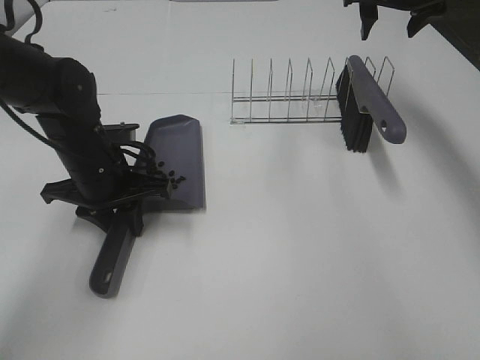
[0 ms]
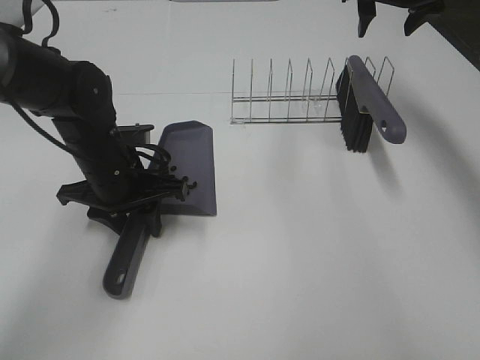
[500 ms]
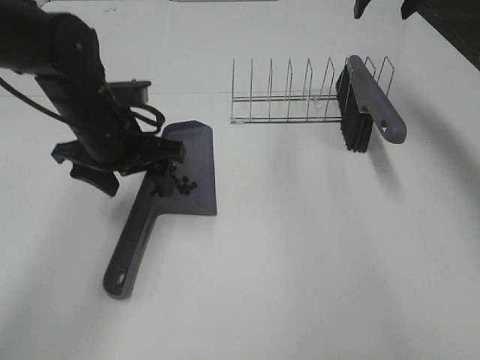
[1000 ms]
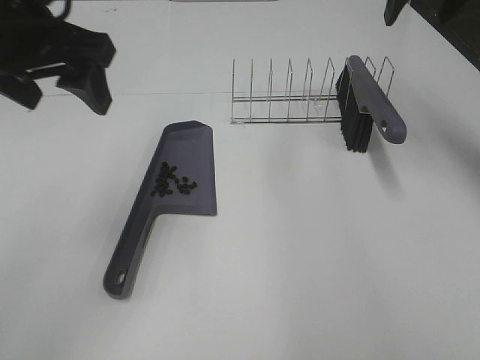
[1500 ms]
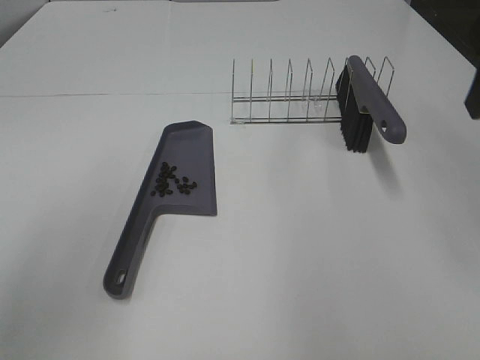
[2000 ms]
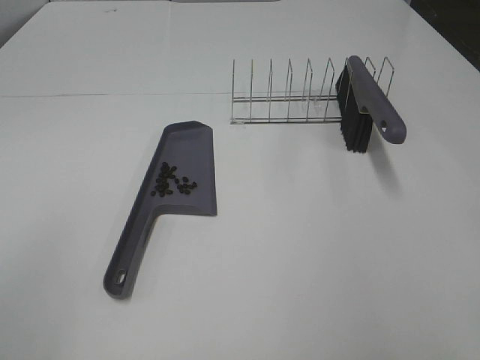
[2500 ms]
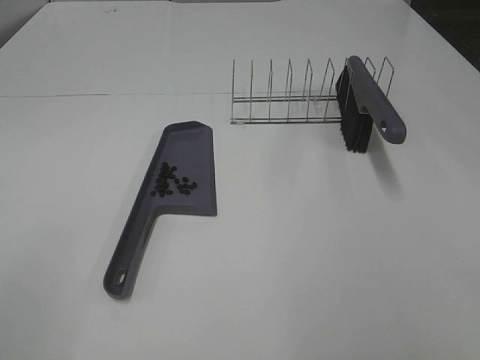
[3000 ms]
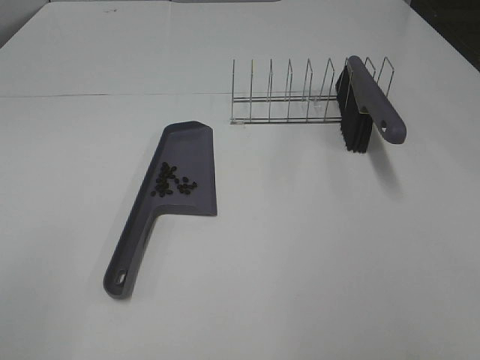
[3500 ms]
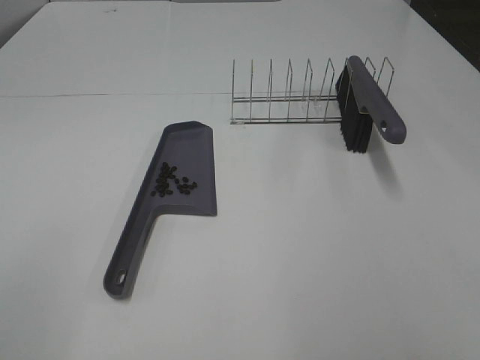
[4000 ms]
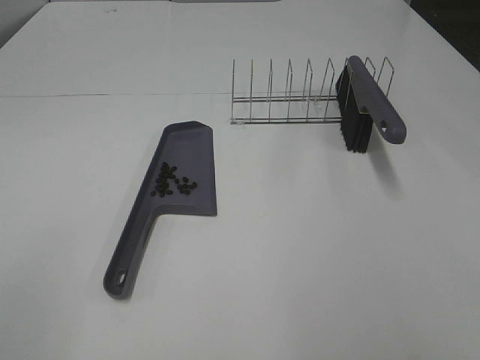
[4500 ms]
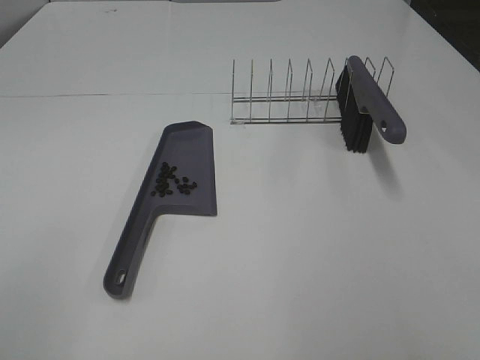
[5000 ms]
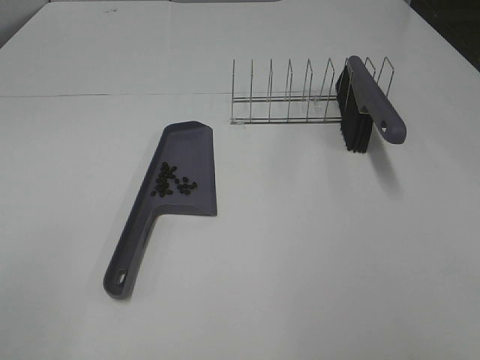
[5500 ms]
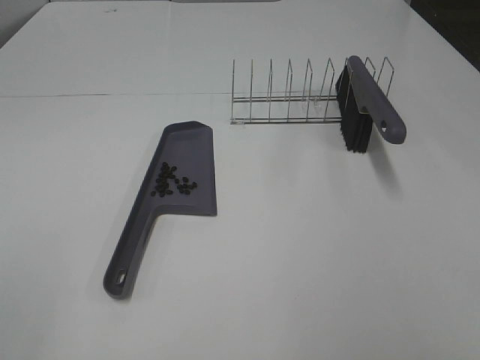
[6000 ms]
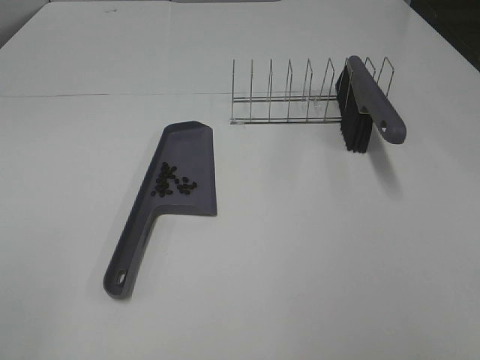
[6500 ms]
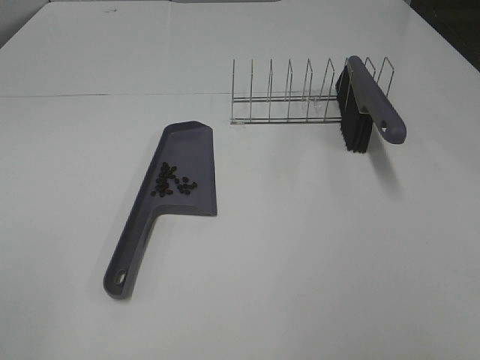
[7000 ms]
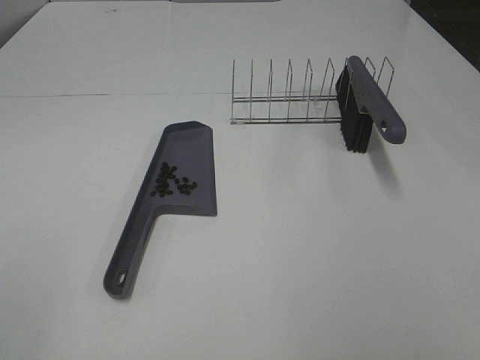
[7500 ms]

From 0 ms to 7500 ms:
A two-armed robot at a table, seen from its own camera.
Task of the whole recording: Sweep Coffee Bean.
From 0 ms to 2000 ms: The left gripper moves upward, backward and to the left, some 30 cm, and opens. Meanwhile the right gripper heads backward, covering some 30 cm.
From 4000 ms to 5500 ms: The two grippers keep their place.

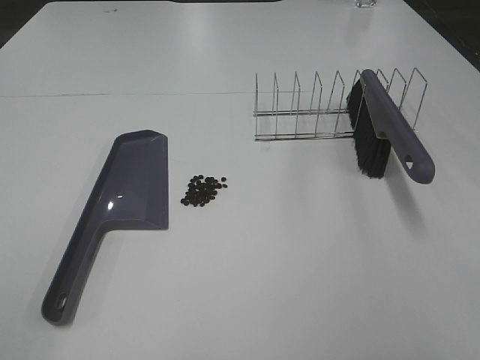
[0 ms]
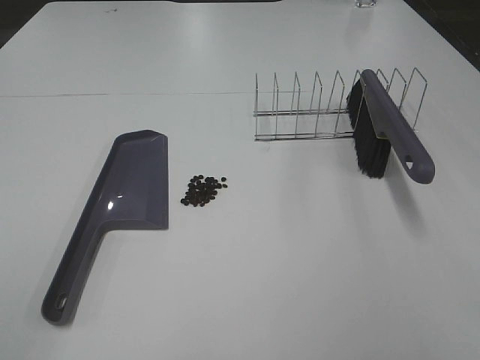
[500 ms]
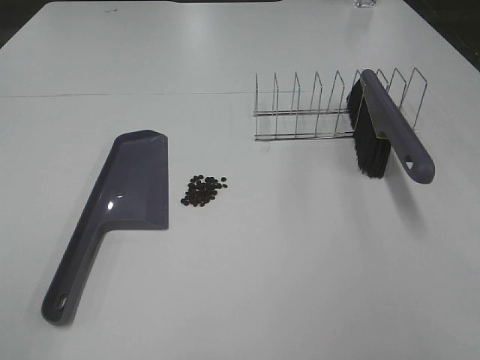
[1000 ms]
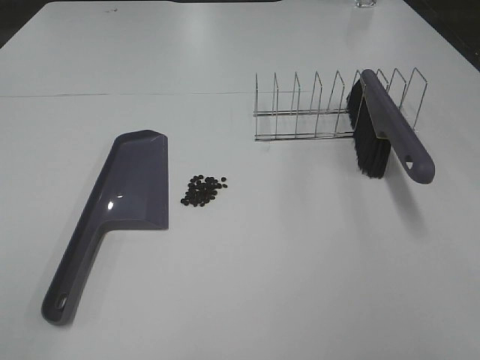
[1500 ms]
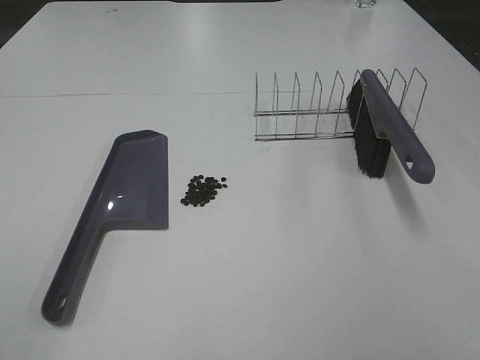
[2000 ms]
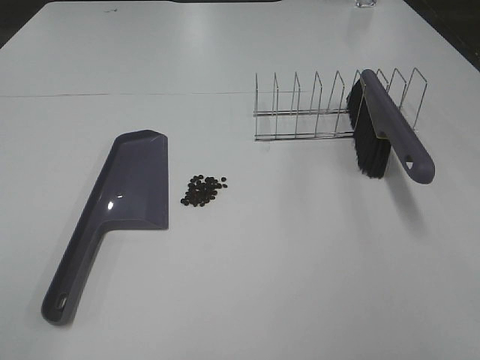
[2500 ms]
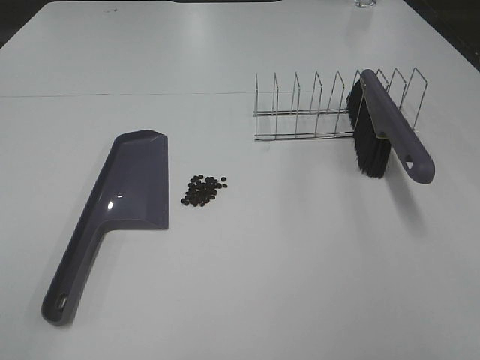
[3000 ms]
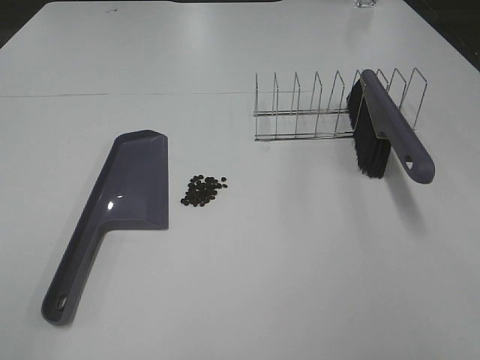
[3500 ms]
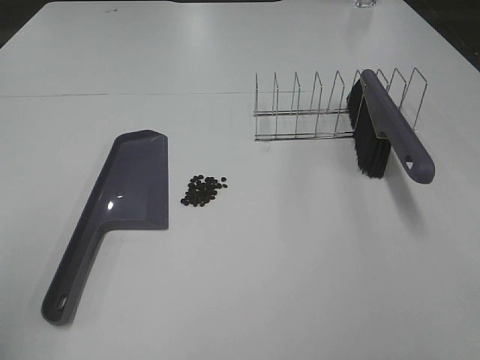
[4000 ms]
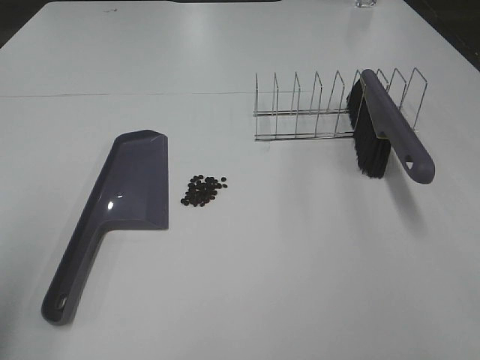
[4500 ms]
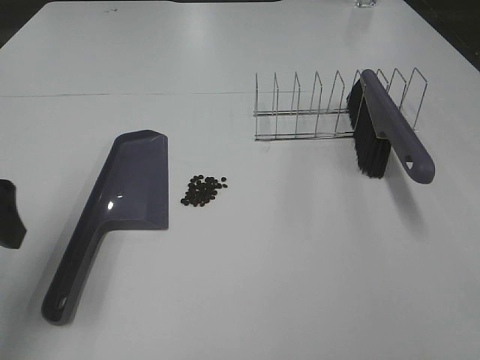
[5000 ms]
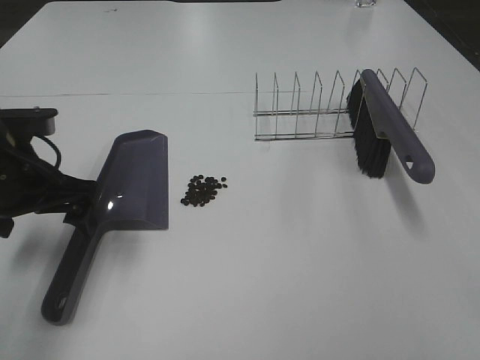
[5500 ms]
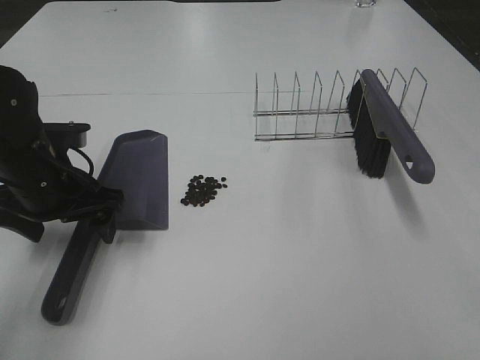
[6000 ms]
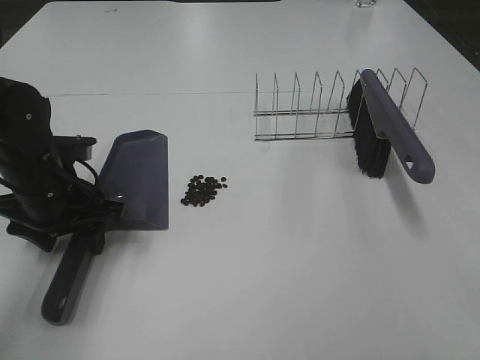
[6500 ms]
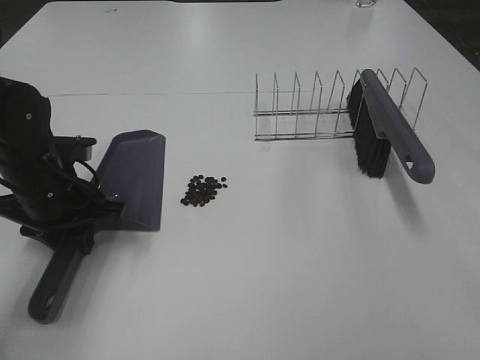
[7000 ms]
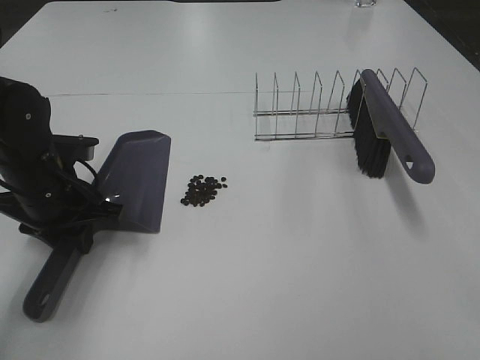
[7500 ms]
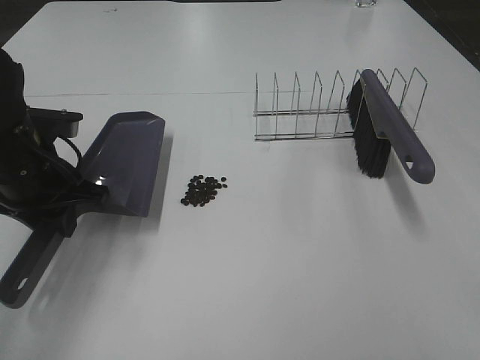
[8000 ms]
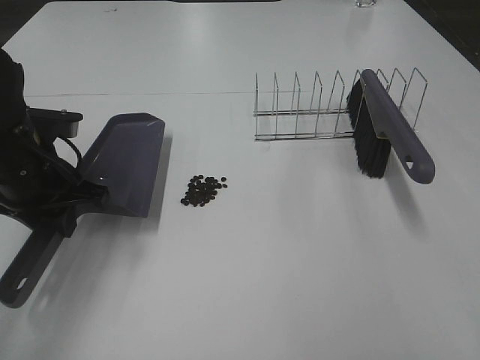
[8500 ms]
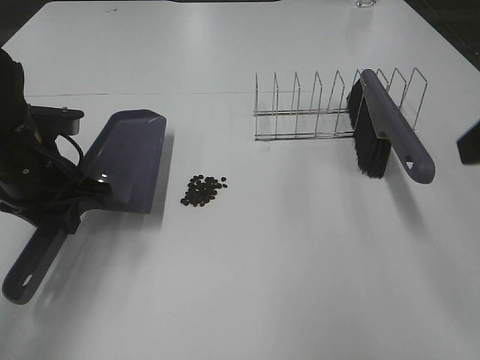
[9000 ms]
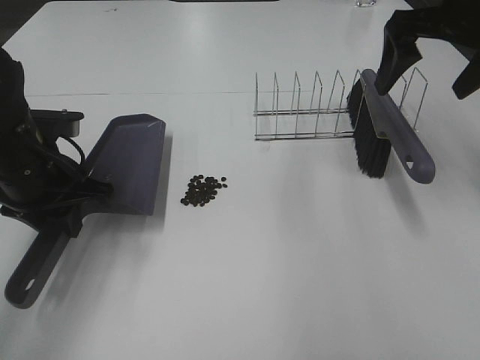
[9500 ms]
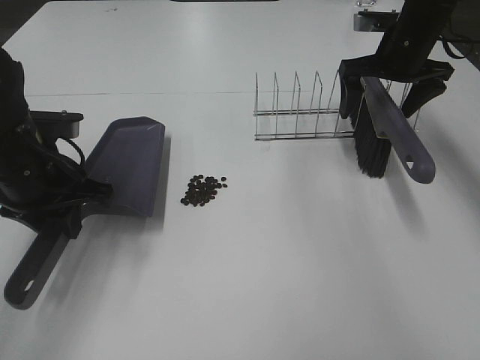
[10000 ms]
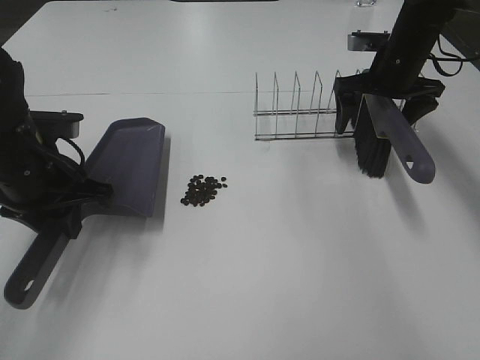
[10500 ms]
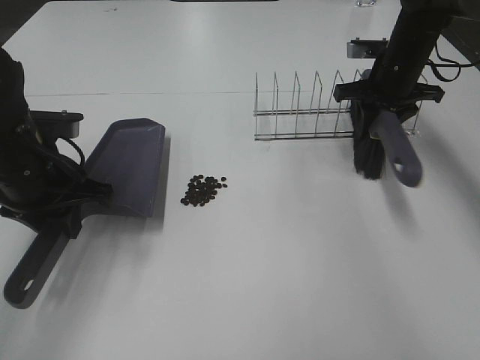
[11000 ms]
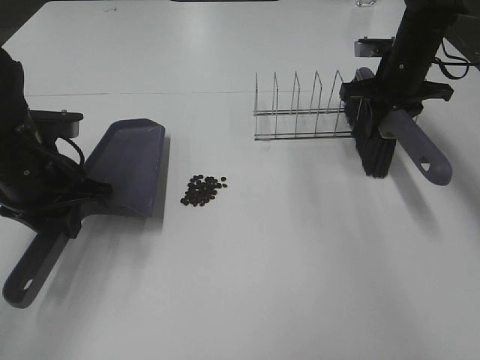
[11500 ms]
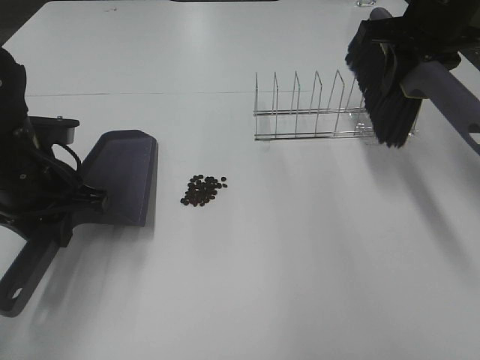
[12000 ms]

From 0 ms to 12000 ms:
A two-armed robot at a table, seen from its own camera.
Task of the whole recording: Sweep Coffee Bean.
Step, from 0 ms to 7000 ms: Left hand: grab the dustpan.
Step, from 8500 ms to 11000 ms: Right hand:grab the broom.
From 0 ms to 2000 ms: The two grippers keep their place.
From 4000 ms to 6000 ms: The left gripper is displaced forward, downward and to the right by some 35 cm.
From 6000 ms to 8000 ms: The left gripper closes its fingers.
From 8000 ms to 10000 ms: The right gripper shifts about 50 cm forward, and opens its fingers.
From 10000 ms to 12000 ms: The right gripper is displaced upward and backward by approximately 10 cm, and closes its fingers.

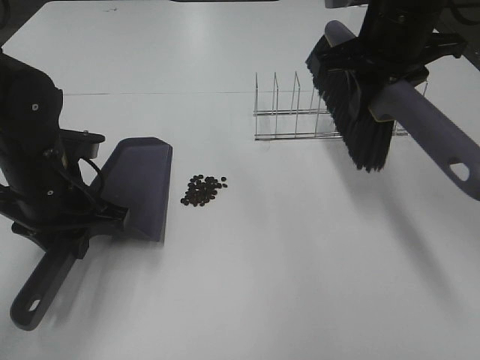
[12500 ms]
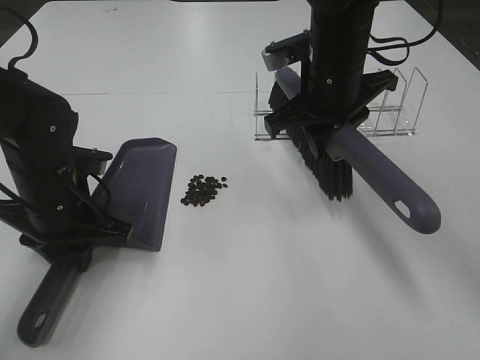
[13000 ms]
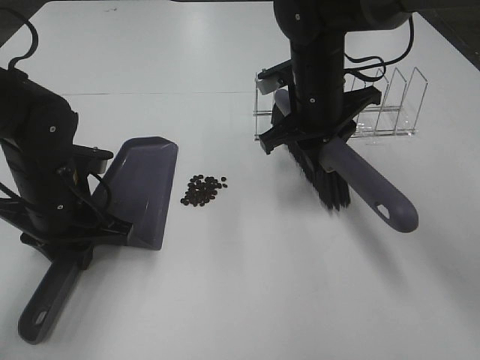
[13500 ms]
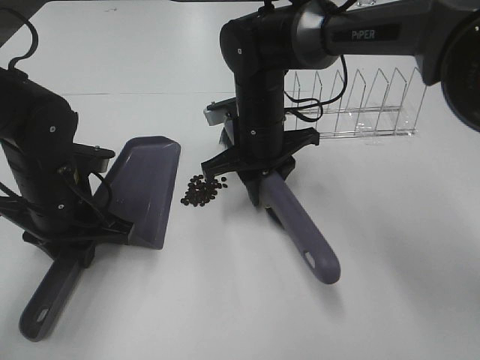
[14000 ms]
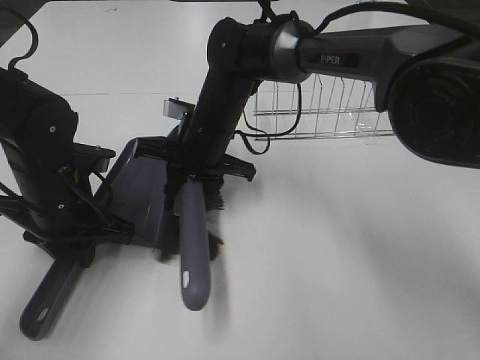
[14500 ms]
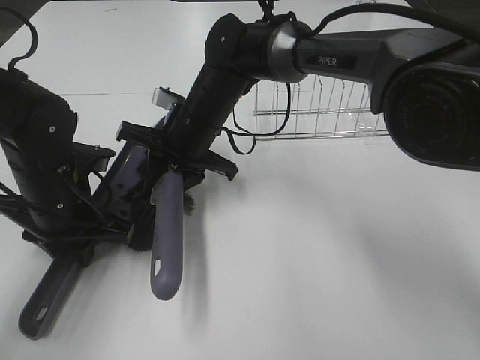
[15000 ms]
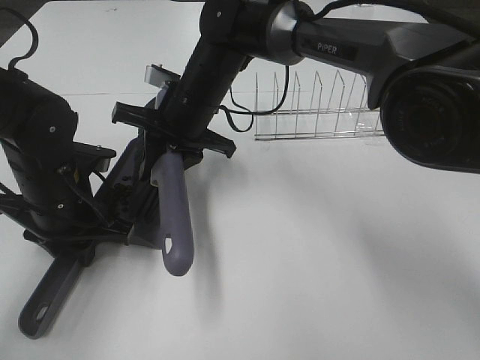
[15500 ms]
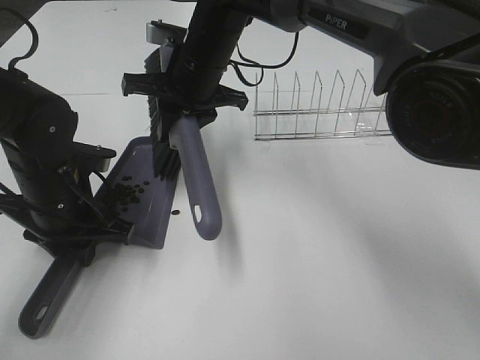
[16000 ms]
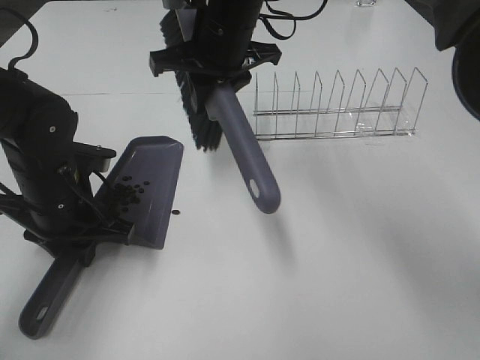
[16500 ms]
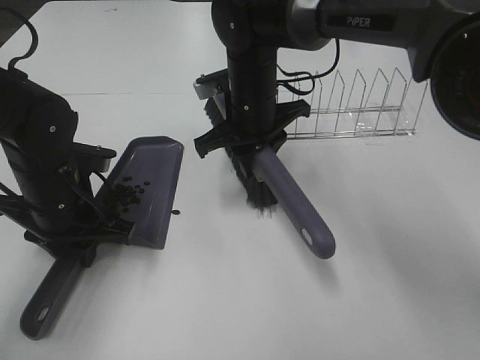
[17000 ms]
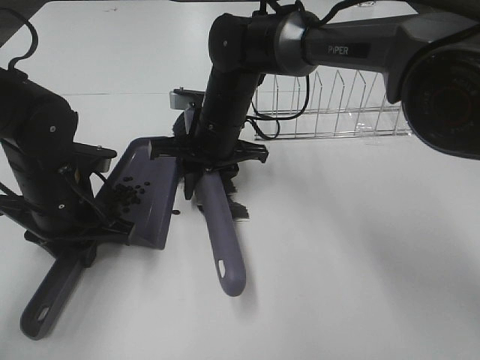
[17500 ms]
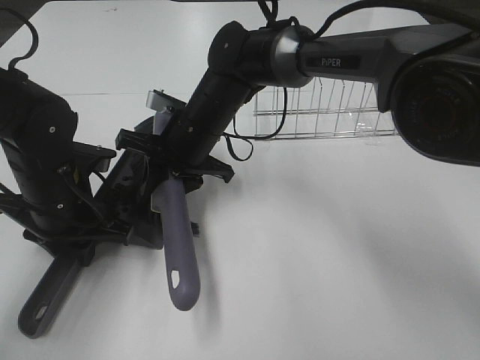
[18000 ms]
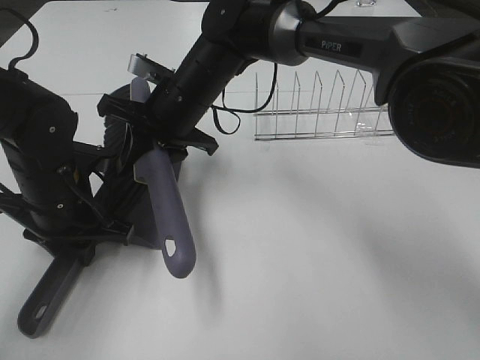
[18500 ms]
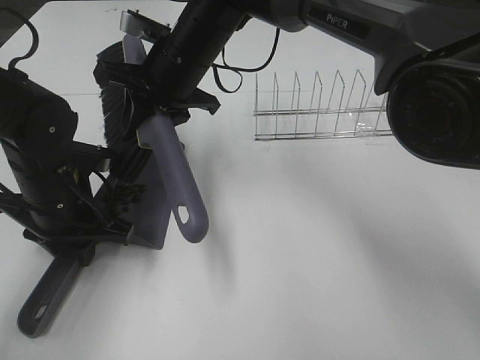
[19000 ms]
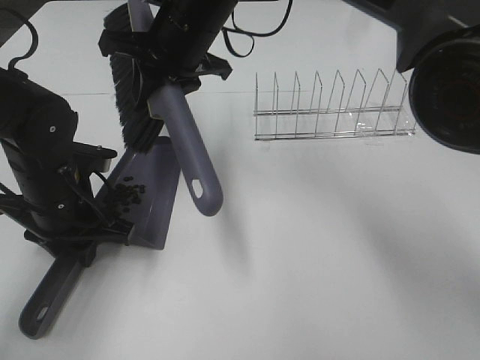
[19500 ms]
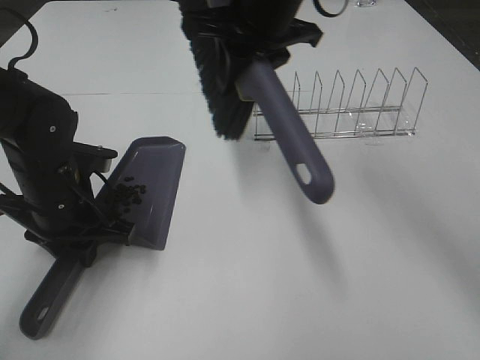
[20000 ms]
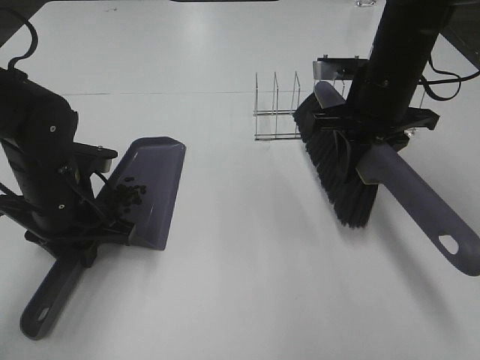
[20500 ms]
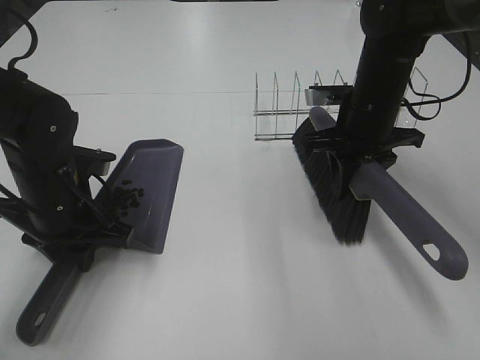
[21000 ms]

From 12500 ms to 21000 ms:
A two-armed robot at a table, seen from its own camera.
Task of the whole recording: Sweep Coffee Bean.
Step, from 12500 ms to 18500 ms: Right hand:sweep the coffee beans into the dustpan.
From 12500 ms to 14500 ms: The right gripper is displaced to the left and downward by approximately 25 cm.
From 14500 ms to 16500 ms: The right gripper is displaced upward by roughly 15 cm.
From 16500 ms to 19000 ms: The right gripper travels downward and back again, roughly 10 cm each way.
From 19000 ms to 21000 ms: The right gripper is displaced to the right by roughly 20 cm.
